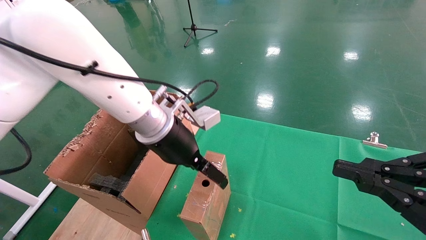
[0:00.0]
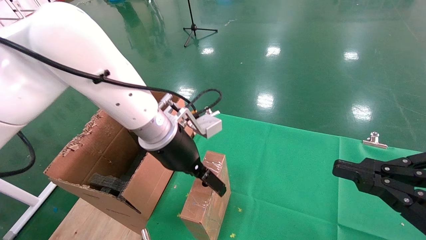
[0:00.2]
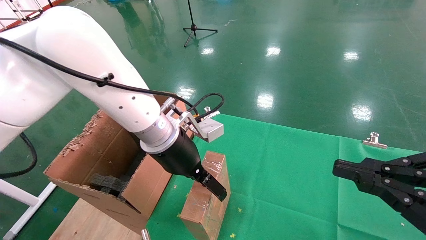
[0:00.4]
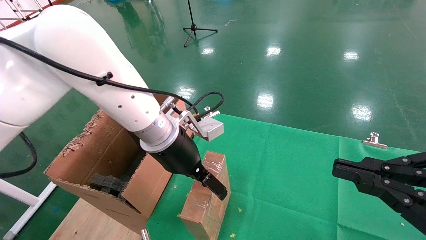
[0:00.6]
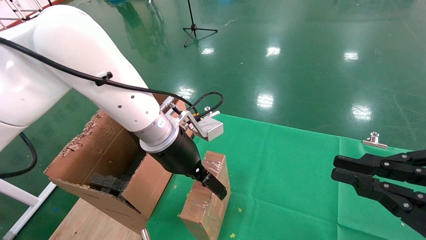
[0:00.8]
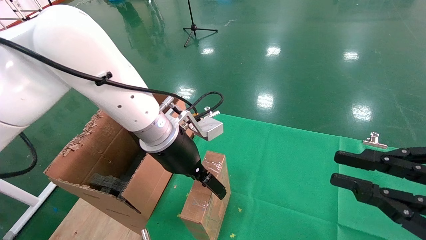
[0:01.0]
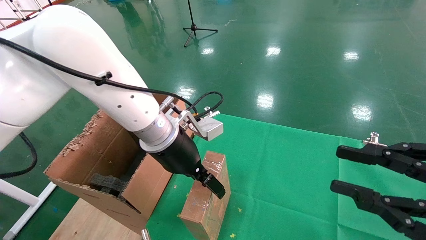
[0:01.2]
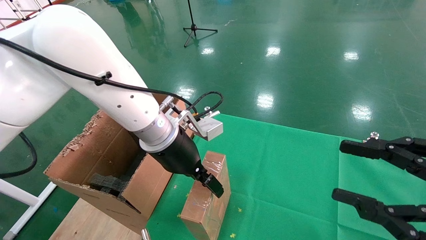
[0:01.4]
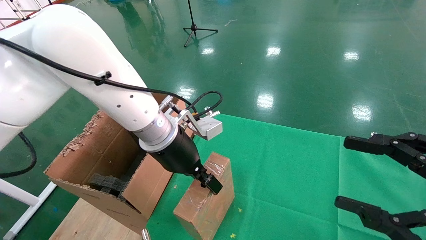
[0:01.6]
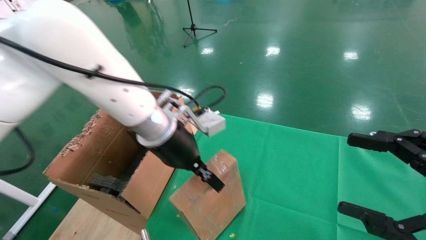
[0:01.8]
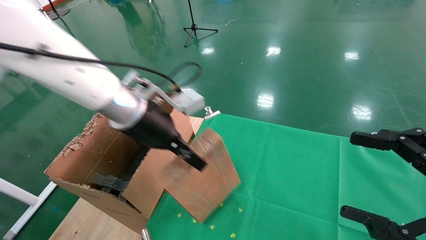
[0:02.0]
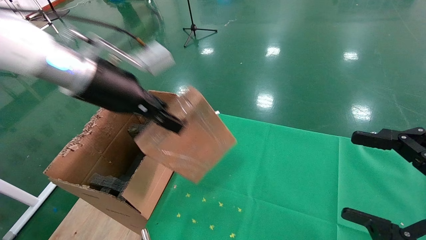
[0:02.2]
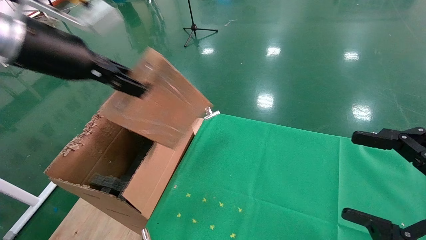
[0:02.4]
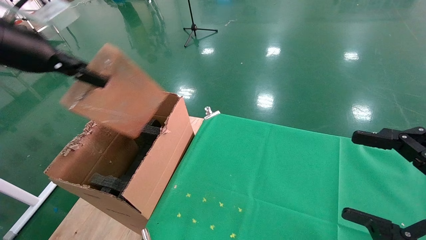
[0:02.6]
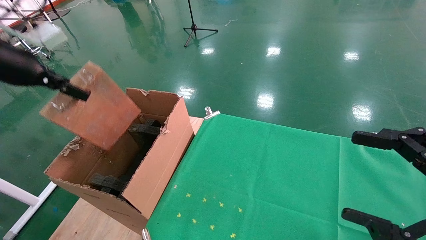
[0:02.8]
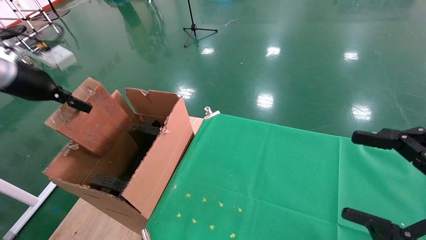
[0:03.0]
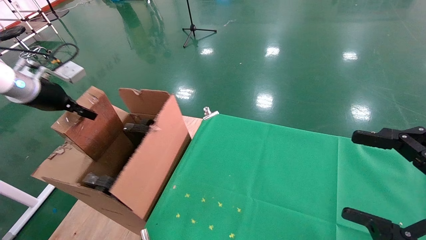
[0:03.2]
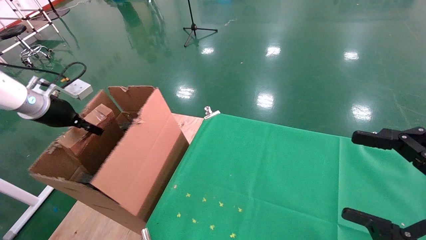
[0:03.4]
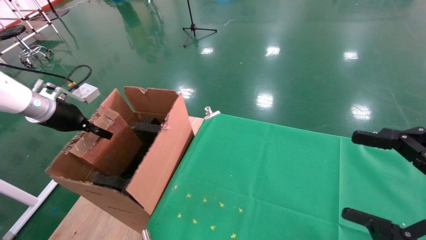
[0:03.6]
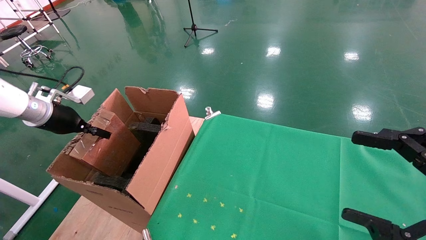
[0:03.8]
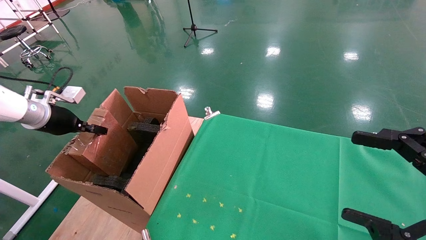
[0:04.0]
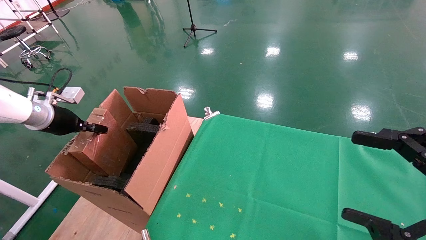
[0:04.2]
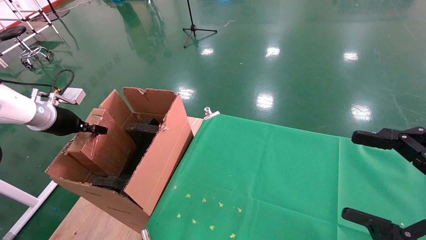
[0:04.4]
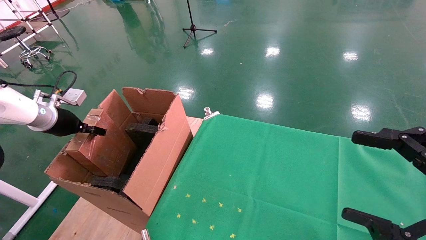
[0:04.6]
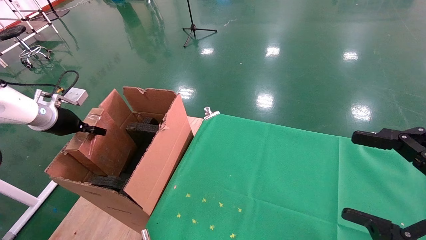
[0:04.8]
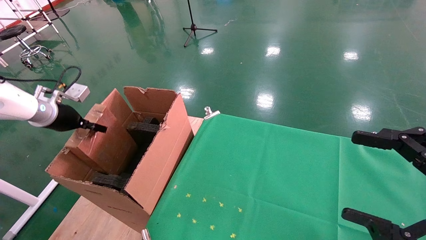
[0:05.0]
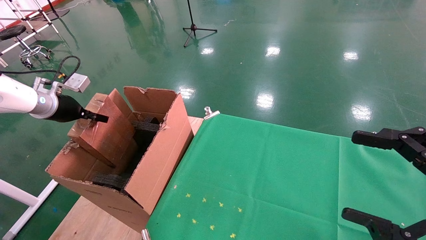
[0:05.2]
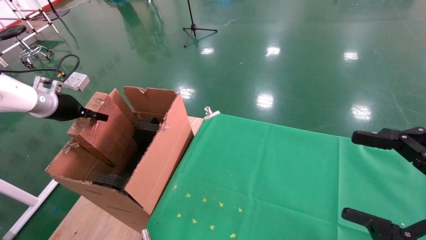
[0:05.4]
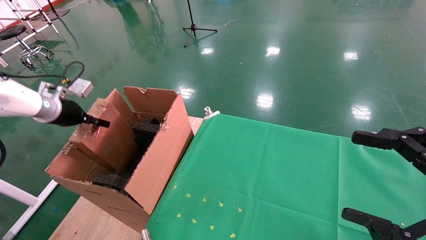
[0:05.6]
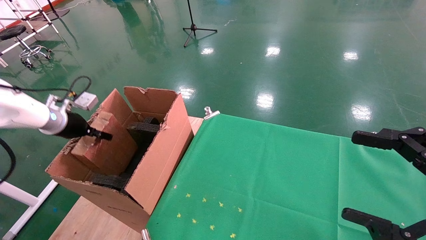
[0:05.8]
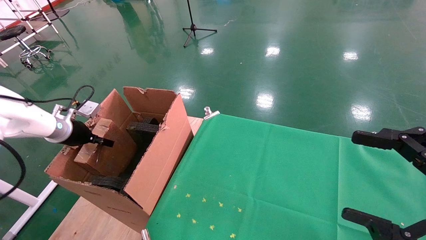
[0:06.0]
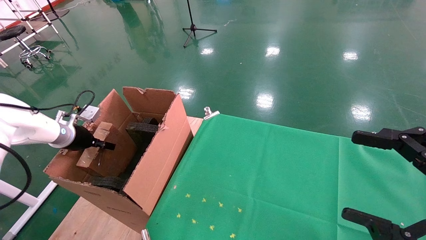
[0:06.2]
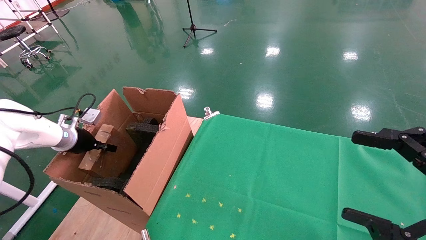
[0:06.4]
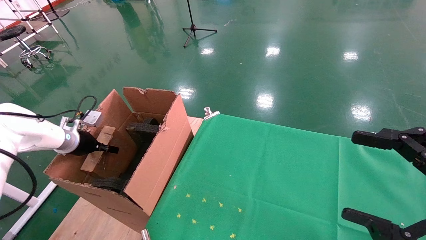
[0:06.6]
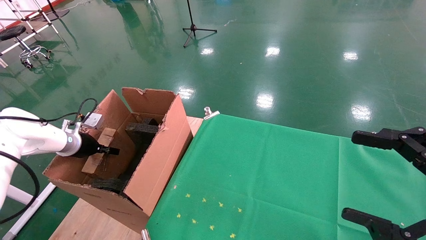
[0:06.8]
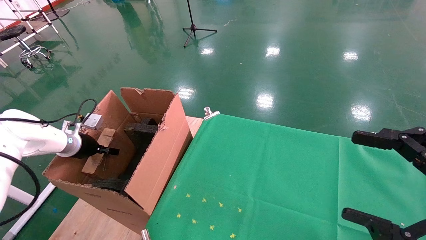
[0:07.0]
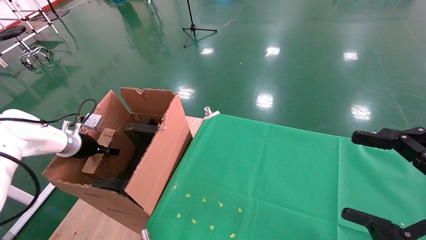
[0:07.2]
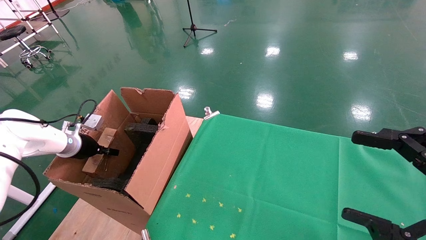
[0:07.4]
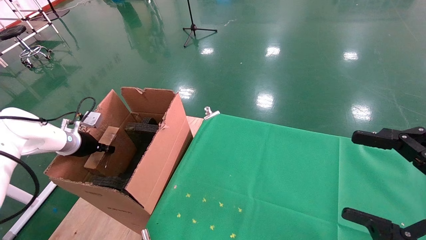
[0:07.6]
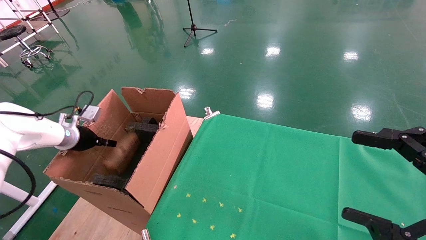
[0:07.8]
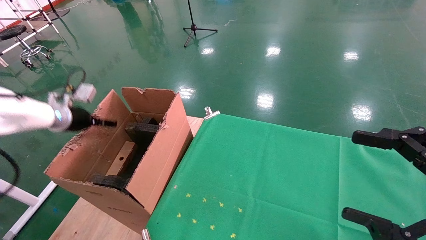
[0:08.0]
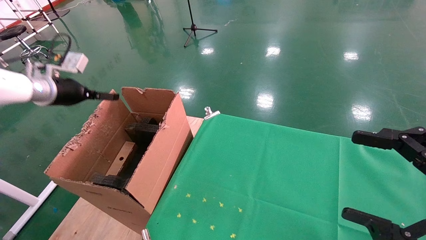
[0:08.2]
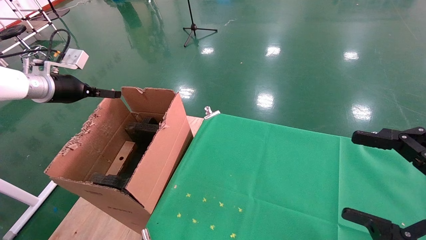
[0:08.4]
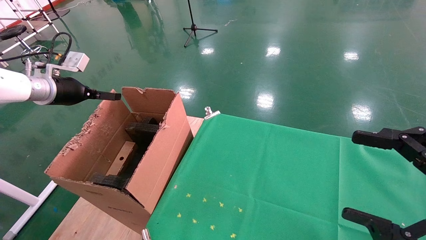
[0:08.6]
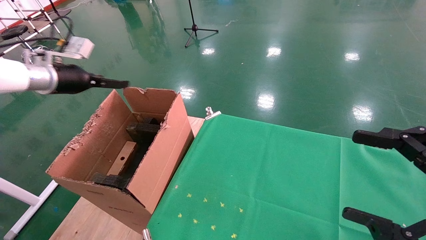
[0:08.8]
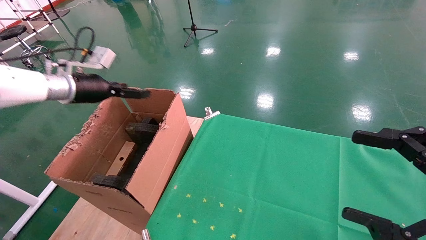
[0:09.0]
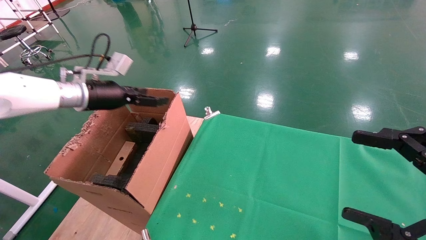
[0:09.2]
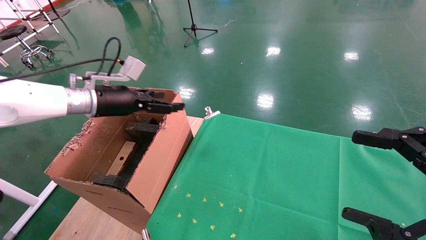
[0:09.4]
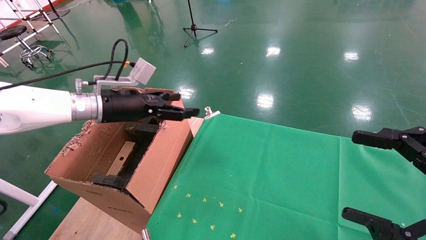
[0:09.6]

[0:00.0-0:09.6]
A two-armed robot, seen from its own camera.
Task of the whole recording: using a robotic arm to pick up a cardboard box and palace it the carton.
Step, 0:01.8 to 0:08.4: Place the mouse and the power cord paper box into the container.
0:00.0 to 0:01.6: The right gripper opens up. Meanwhile the left gripper closes up.
0:01.6 to 0:03.2: The left gripper is displaced to the left by roughly 35 cm, and closes its fingers, while the right gripper opens its fingers.
0:03.2 to 0:04.8: The left gripper heads downward, covering approximately 5 cm.
0:04.8 to 0:06.4: The left gripper travels downward by some 10 cm.
0:06.4 to 0:08.0: The left gripper moves upward, some 10 cm, and opens up.
0:08.0 to 0:09.6: The left gripper is displaced to the right by approximately 15 cm, and opens.

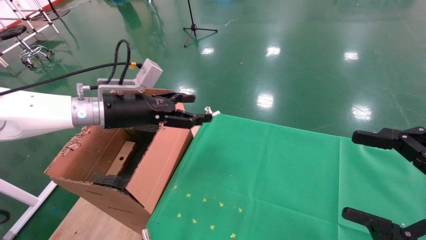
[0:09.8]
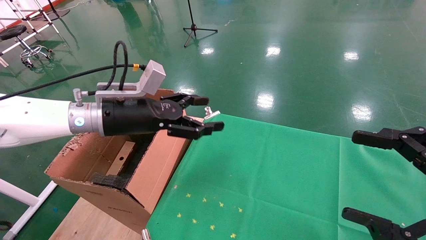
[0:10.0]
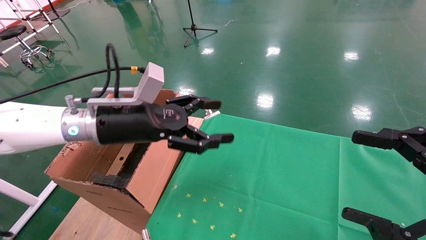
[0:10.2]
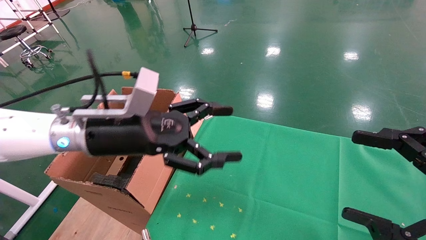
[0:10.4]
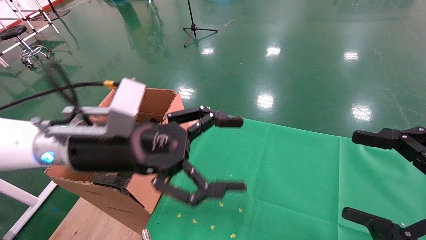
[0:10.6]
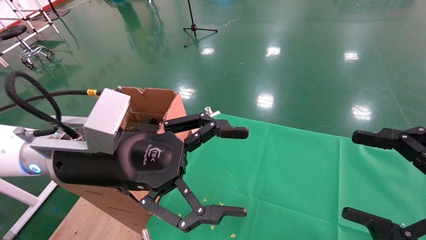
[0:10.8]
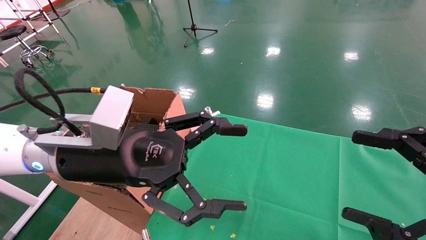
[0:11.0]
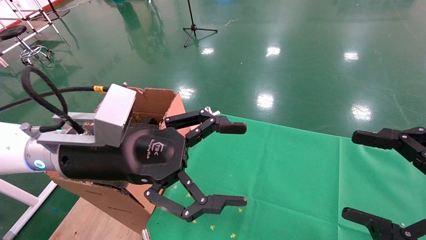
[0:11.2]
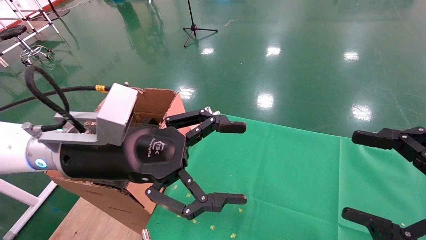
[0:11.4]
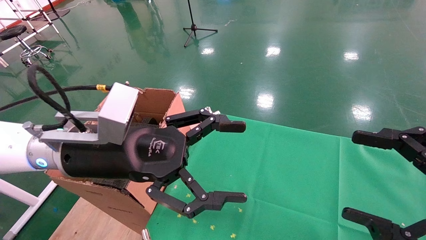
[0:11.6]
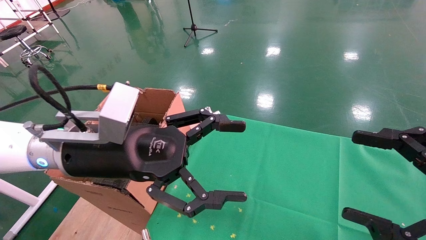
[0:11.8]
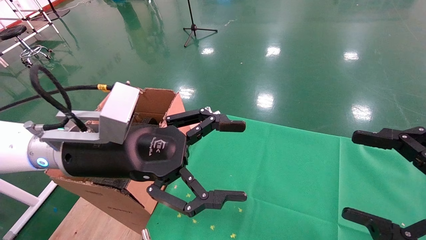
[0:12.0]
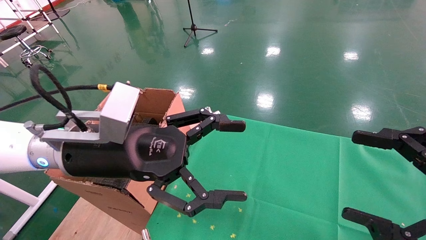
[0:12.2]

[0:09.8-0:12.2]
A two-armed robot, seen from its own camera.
Task of the whole recording: using a robotic arm to pick up a cardboard box and palace it the carton.
0:09.8 to 0:11.0: The left gripper travels backward and to the right by roughly 15 cm.
0:11.0 to 0:12.2: Both grippers stay about where they are.
